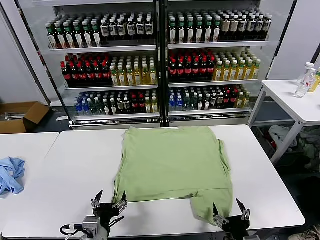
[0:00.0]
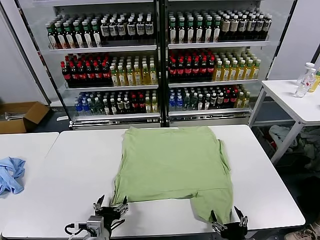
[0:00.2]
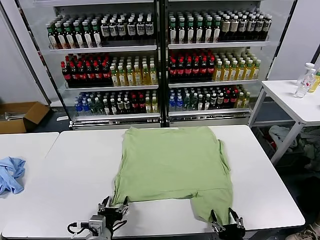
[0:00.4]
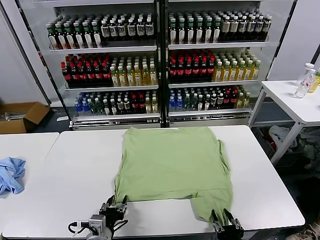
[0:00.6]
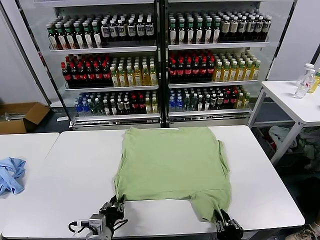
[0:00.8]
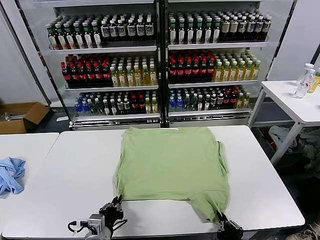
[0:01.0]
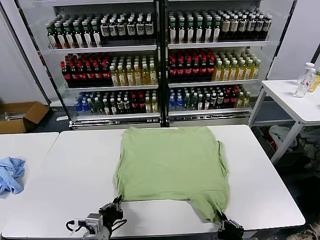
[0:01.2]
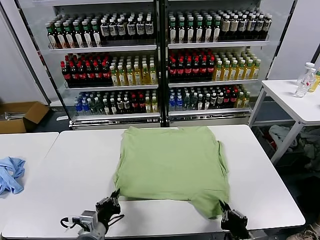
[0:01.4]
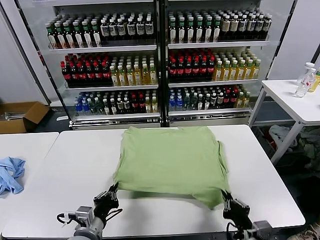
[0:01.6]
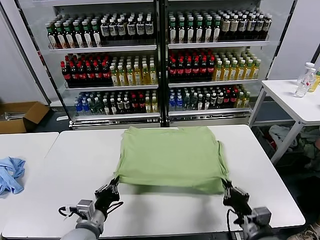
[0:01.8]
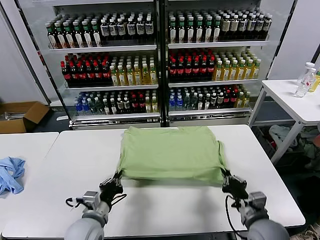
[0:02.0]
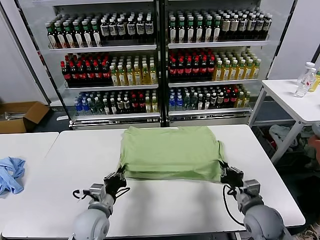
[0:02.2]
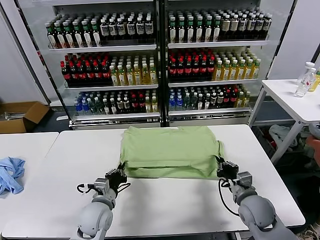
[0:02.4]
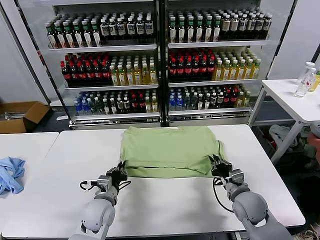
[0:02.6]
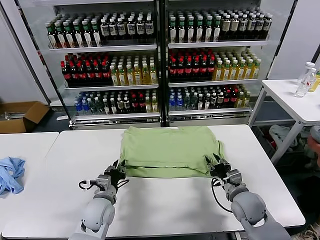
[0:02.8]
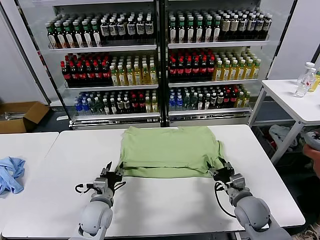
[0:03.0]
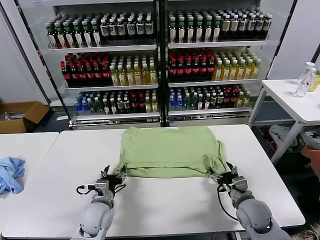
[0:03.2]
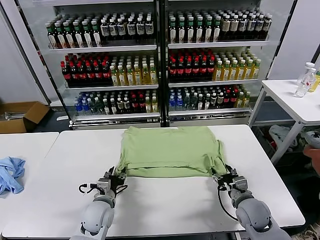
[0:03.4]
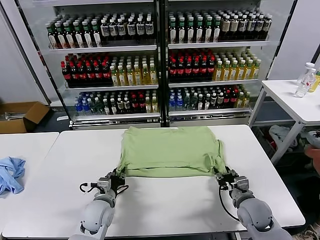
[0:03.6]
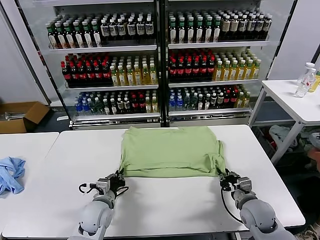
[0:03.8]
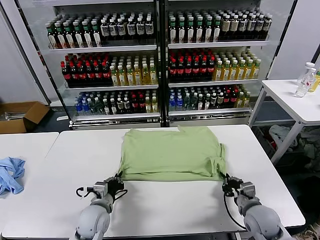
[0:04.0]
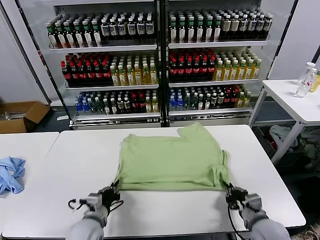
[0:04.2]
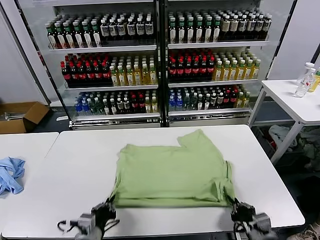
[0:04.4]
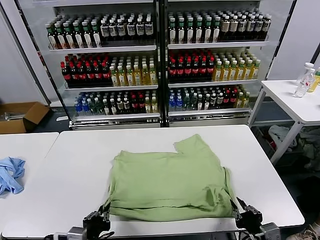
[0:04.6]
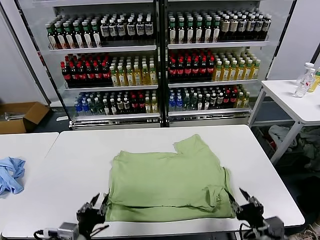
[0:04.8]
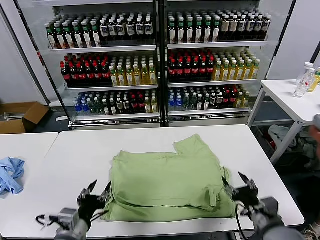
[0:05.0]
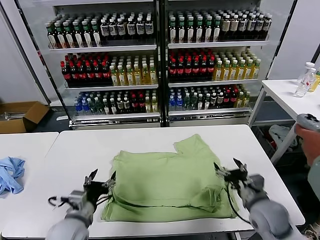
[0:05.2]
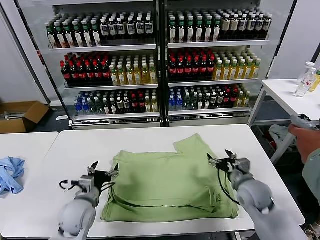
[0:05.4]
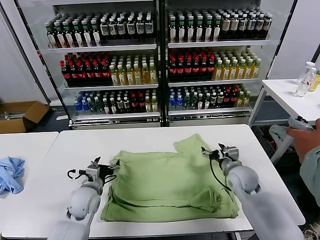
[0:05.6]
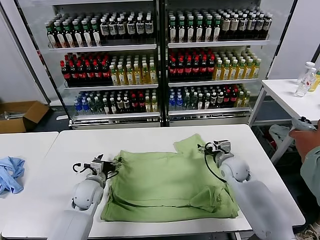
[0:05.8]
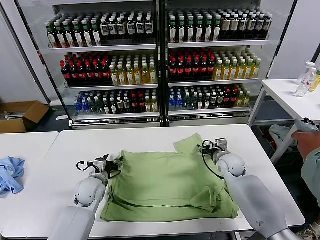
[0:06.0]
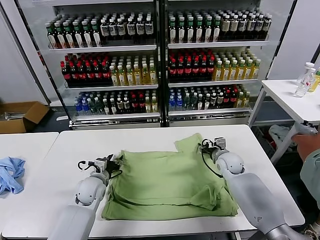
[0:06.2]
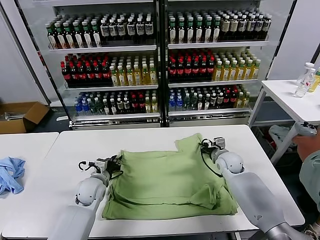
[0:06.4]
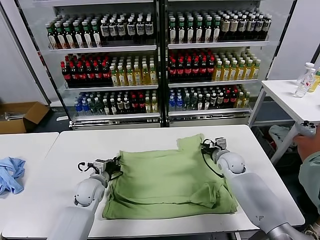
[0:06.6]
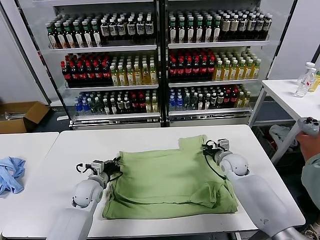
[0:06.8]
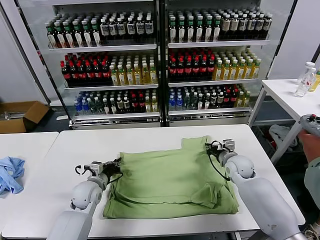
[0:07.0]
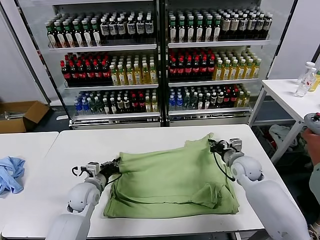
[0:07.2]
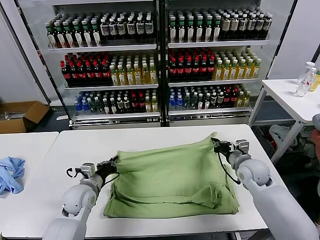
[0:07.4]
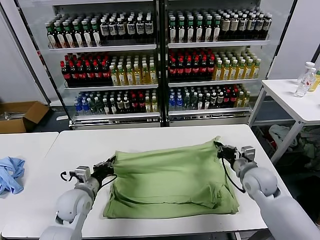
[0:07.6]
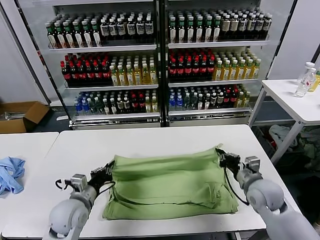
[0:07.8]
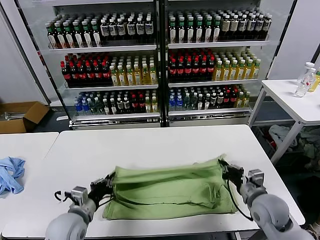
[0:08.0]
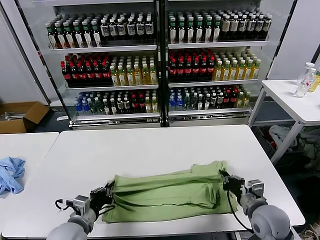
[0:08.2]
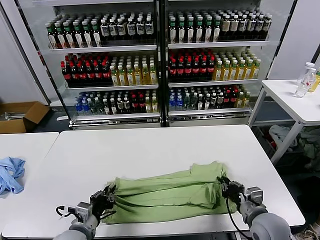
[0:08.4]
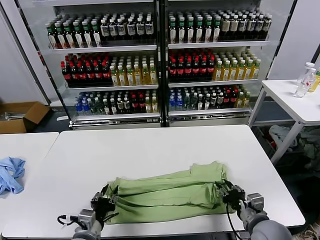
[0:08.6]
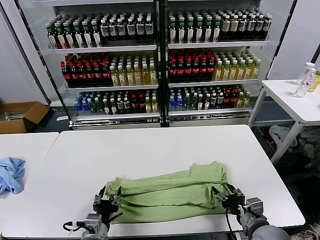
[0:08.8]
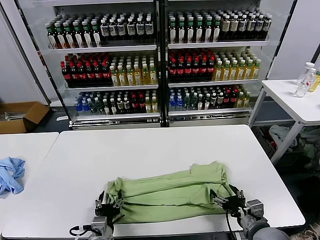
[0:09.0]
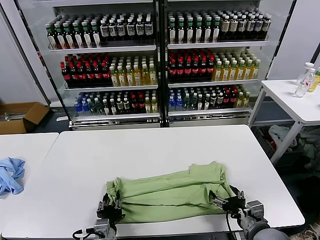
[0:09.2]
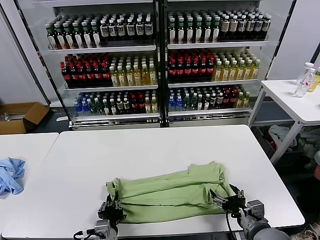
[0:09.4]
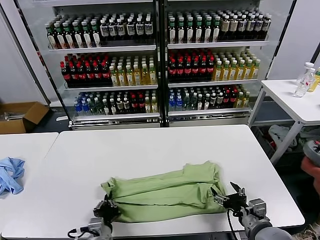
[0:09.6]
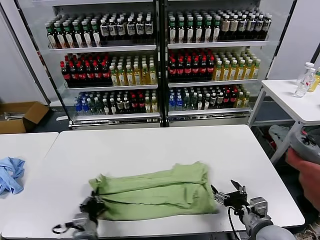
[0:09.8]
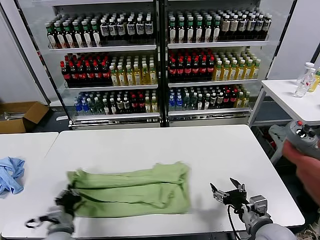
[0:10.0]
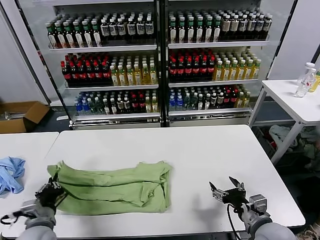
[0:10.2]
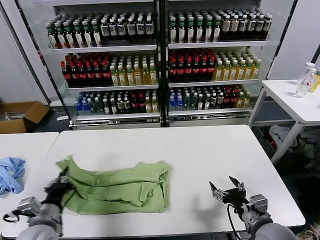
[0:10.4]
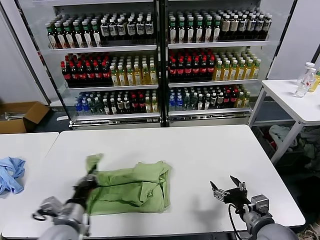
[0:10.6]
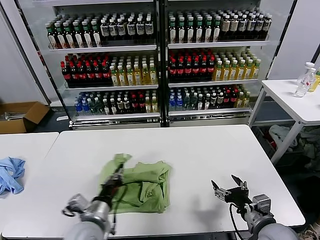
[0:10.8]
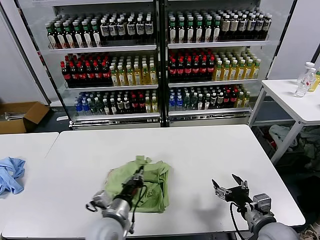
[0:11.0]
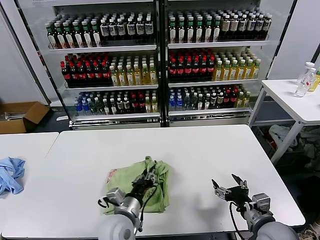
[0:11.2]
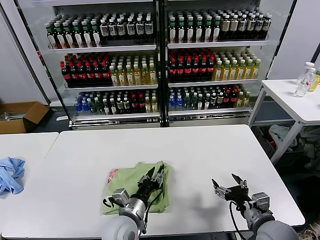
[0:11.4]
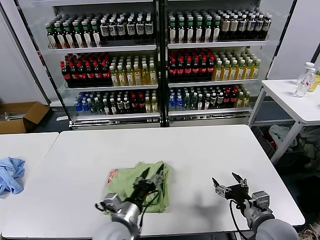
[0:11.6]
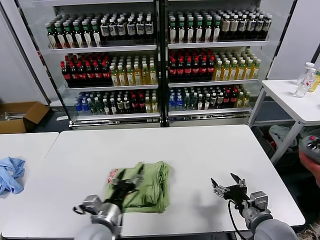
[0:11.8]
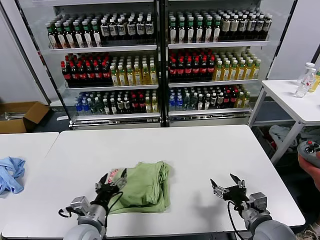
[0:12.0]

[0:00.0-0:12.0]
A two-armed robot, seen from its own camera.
Task of the whole recording: fold and organize the clothes.
Step, 0:00.0 to 0:01.0: use both grippers simultaneously to clamp the lower edge of the clothing fabric.
Step, 0:01.2 to 0:02.8: use both grippers to drag the lower edge of the fabric forward and fold it over the upper edge.
Step, 0:03.0 to 0:04.6: Drag the clothes downward with both gripper.
Step, 0:04.8 to 0:06.6: use both grippers simultaneously to clamp the upper edge of the clothing fabric.
Step, 0:06.8 to 0:08.6: use both grippers to drag the upper edge of the fabric backward and fold it over the lower edge.
Step, 0:08.8 to 0:09.4: use the left gripper to clamp the left edge of the fabric.
Step, 0:09.6 to 0:11.4: use the left gripper to drag the left edge of the fabric to the left and folds it over the right edge.
0:01.6 to 0:03.0: The grippers both shift forward by some 10 cm. The left gripper opens its fingers. Meanwhile the right gripper opens up.
0:03.0 to 0:04.4: The grippers both shift backward by approximately 15 cm. The right gripper closes up; the left gripper closes its fingers.
0:04.4 to 0:06.0: The left gripper moves forward, approximately 20 cm, and opens up. Meanwhile the right gripper moves forward, about 35 cm, and opens up.
0:06.0 to 0:07.6: The left gripper moves backward, roughly 5 cm, and closes its fingers; the right gripper shifts roughly 15 cm backward, to the right and upward, and closes up.
0:07.6 to 0:09.0: The right gripper moves backward, roughly 15 cm, and opens up; the left gripper travels backward and to the right by approximately 15 cm, and opens.
0:09.0 to 0:10.4: The left gripper moves to the left and upward, about 15 cm, and closes its fingers.
0:10.4 to 0:12.0: The left gripper is displaced to the right by roughly 10 cm, and opens.

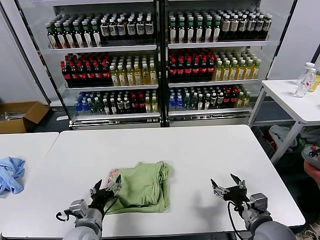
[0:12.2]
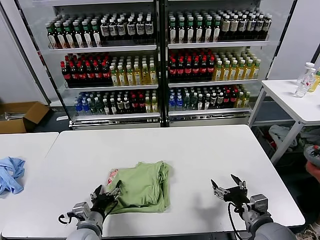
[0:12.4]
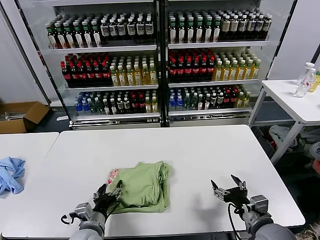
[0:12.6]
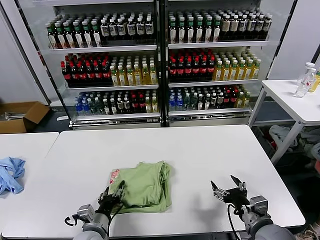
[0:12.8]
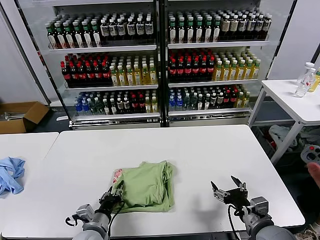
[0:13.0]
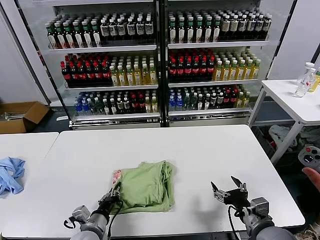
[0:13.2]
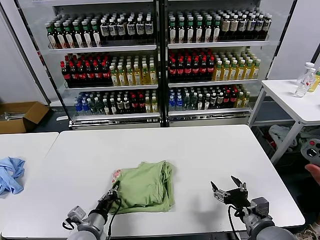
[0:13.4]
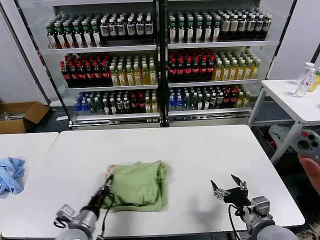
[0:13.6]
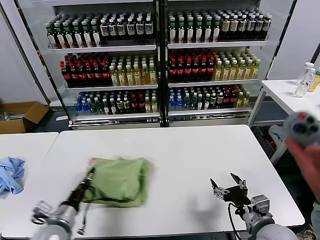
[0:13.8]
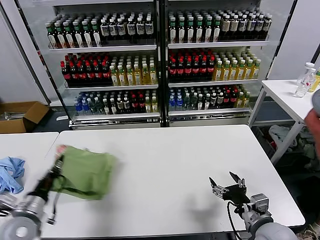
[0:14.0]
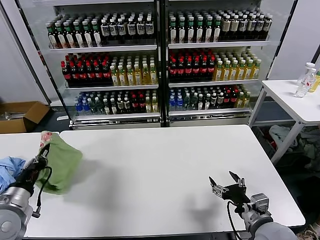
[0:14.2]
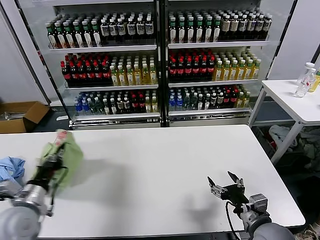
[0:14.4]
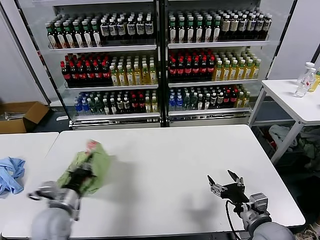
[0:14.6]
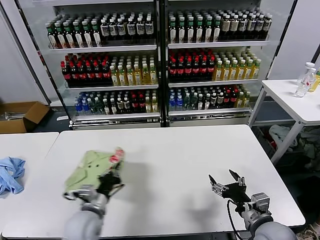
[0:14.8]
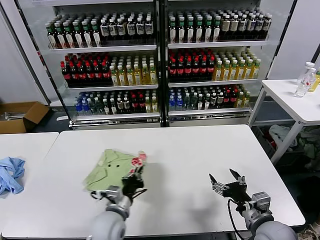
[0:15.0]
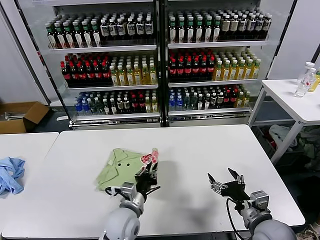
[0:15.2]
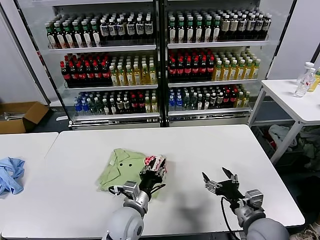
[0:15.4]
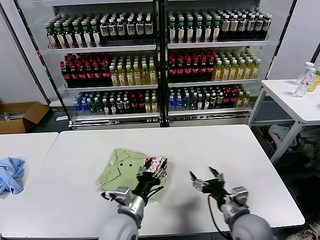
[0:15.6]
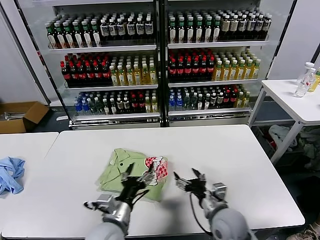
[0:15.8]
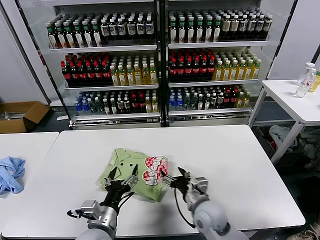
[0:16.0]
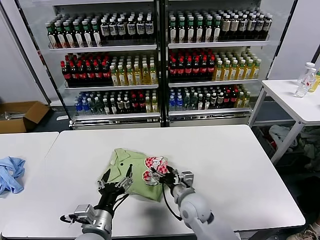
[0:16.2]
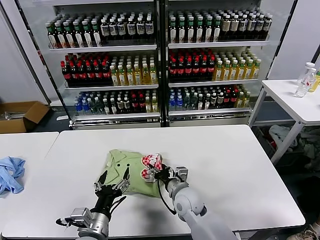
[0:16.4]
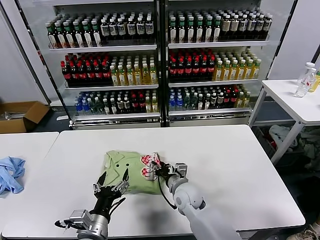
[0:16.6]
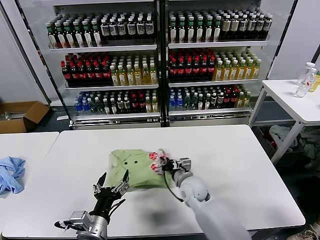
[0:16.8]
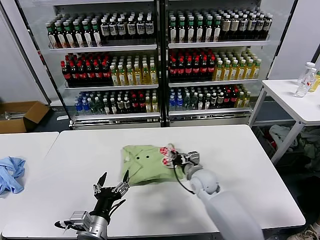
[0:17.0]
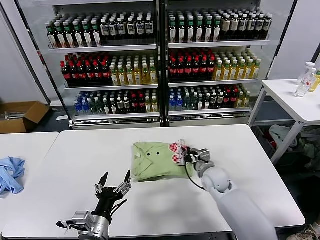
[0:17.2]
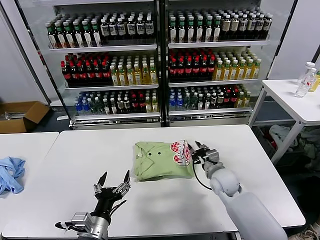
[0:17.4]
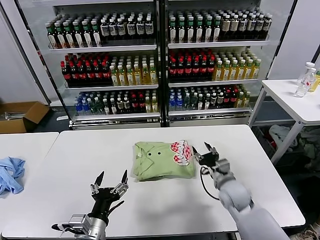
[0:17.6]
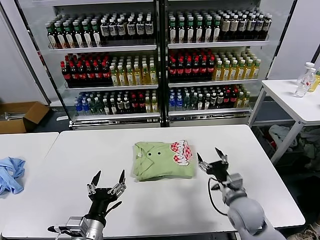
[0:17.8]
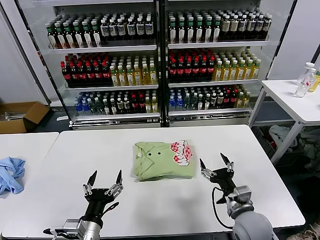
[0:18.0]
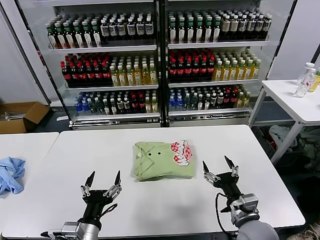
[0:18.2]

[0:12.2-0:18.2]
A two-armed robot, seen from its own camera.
Task of the whole recording: fold and organize the clothes.
Step, 0:12.2 to 0:15.4: Flip the folded clothes over with left gripper.
Step, 0:15.6 to 0:17.4: Drag the clothes to the center of the table.
0:12.2 to 0:13.8: The left gripper shifts some 5 cm to the left, and closes up.
0:13.8 to 0:15.2: The left gripper moves to the right, approximately 20 cm.
0:15.2 to 0:16.6: The left gripper goes some 10 cm backward and to the left, and opens, while the right gripper heads to the left and forward, covering approximately 25 cm, and closes up.
0:16.6 to 0:18.2: The right gripper goes approximately 20 cm to the right and backward, and opens its fingers.
